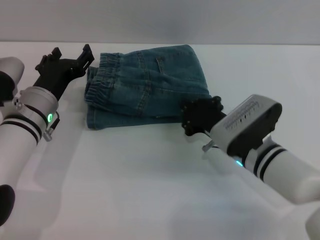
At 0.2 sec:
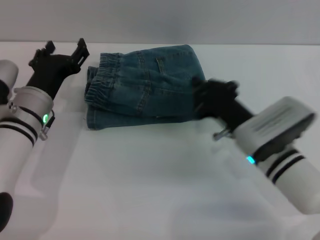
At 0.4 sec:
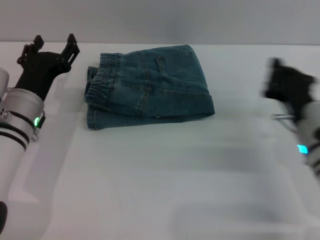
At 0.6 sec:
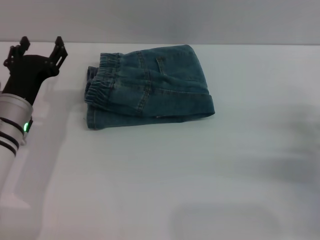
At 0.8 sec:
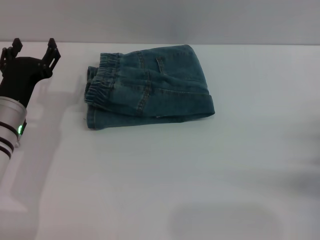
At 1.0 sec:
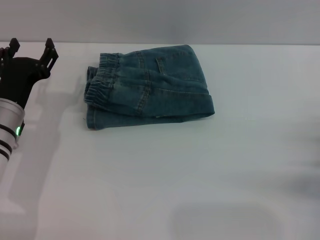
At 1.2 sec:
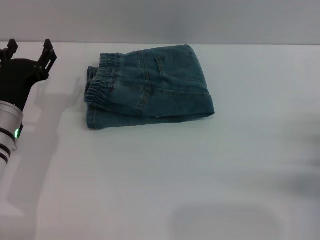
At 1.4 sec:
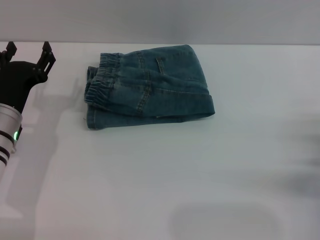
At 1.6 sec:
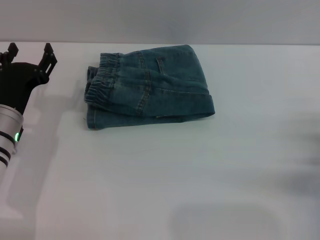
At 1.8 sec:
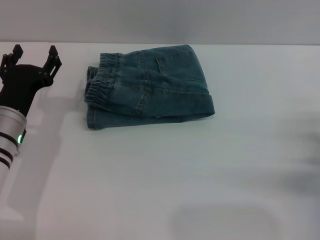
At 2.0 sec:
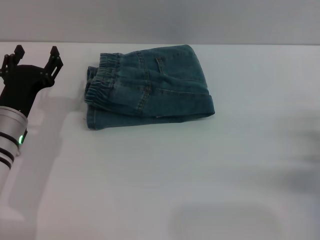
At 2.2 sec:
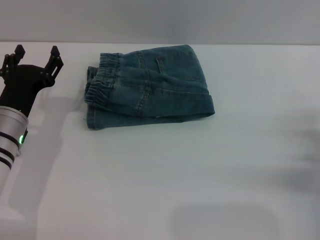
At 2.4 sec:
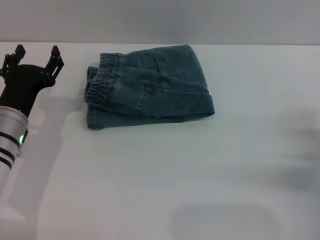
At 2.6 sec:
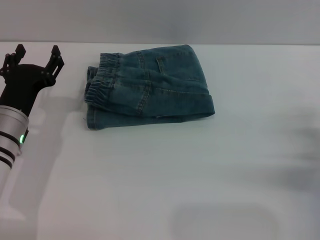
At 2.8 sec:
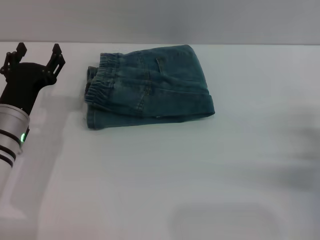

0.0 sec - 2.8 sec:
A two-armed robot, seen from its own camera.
0.0 sec - 1.4 sec: The right gripper goes some 15 cm to the right, and opens up. Meanwhile the left gripper ends up some 5 cm from where it was.
1.4 sec - 2.8 sec: Neither gripper changes place.
